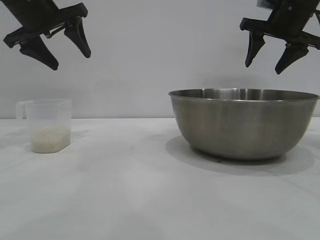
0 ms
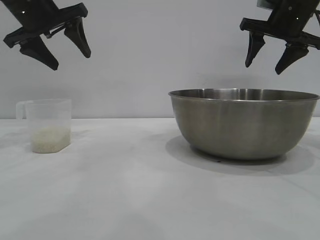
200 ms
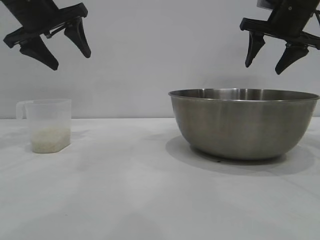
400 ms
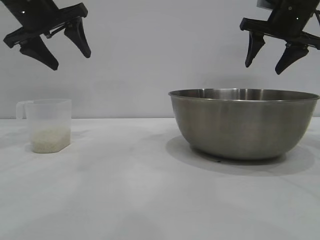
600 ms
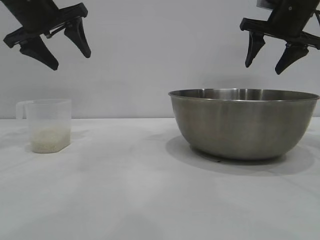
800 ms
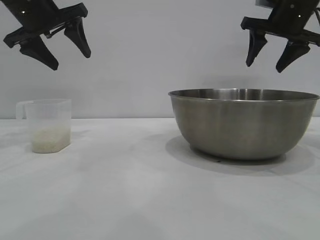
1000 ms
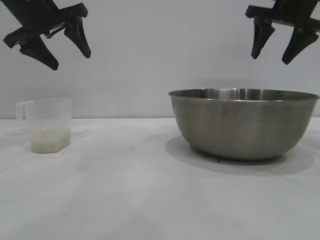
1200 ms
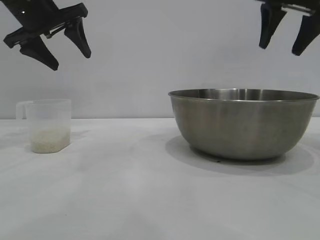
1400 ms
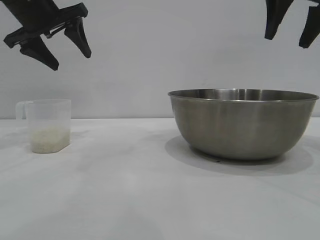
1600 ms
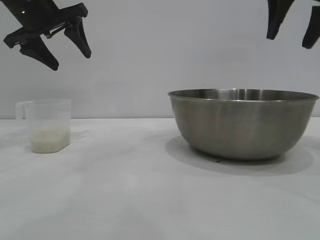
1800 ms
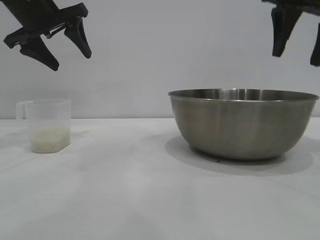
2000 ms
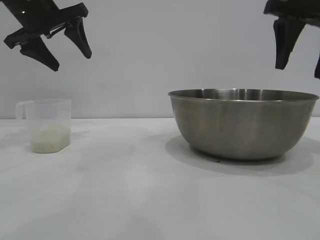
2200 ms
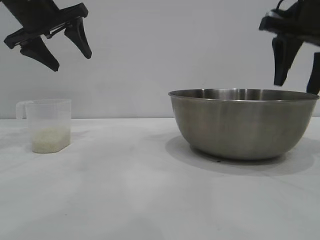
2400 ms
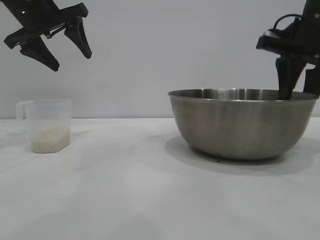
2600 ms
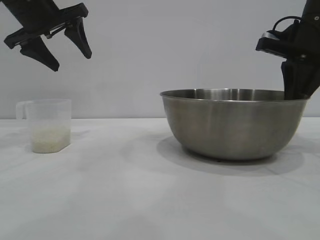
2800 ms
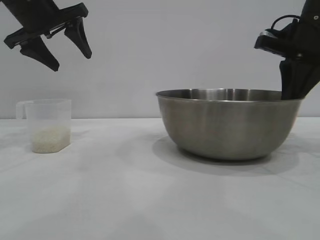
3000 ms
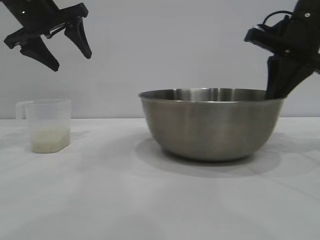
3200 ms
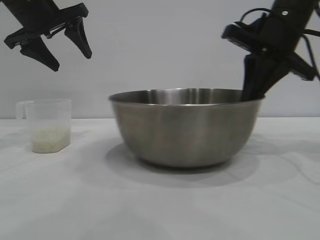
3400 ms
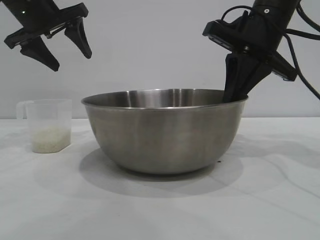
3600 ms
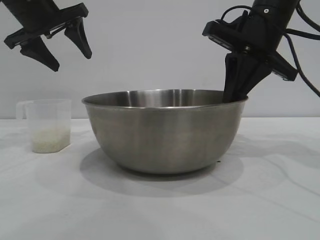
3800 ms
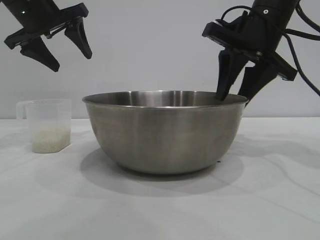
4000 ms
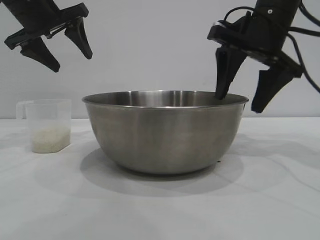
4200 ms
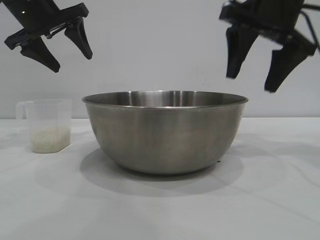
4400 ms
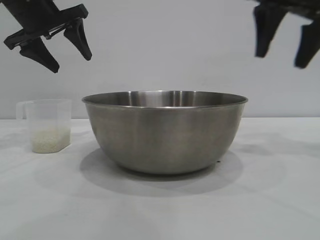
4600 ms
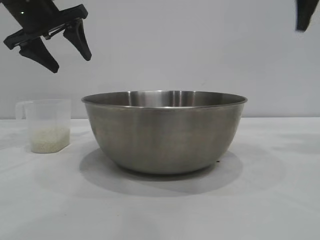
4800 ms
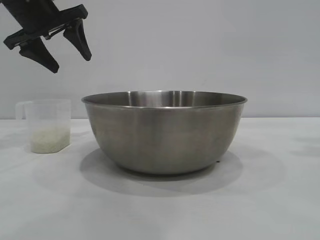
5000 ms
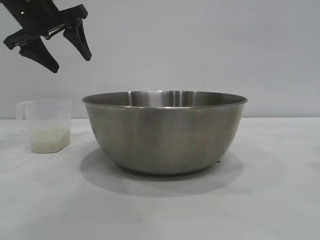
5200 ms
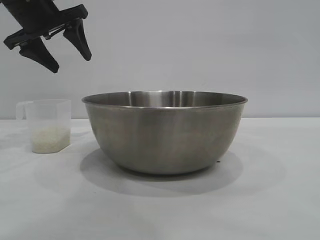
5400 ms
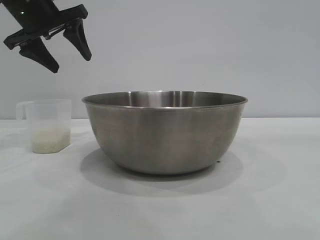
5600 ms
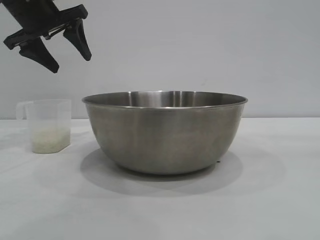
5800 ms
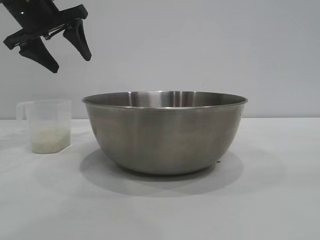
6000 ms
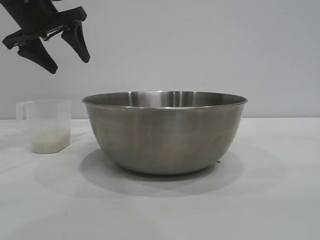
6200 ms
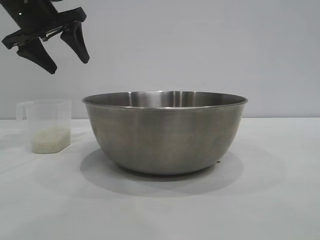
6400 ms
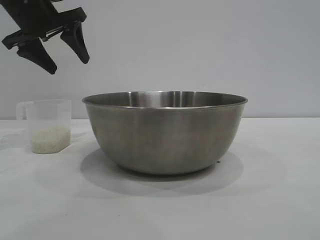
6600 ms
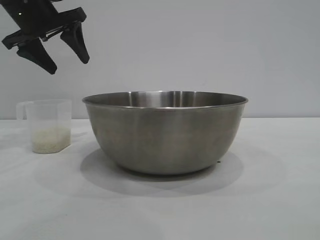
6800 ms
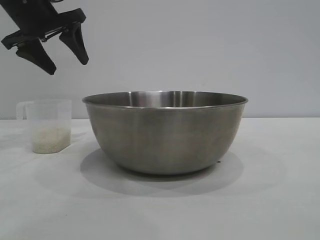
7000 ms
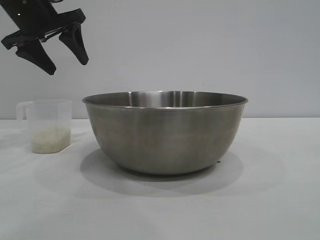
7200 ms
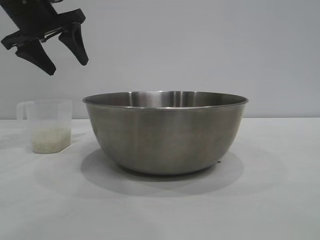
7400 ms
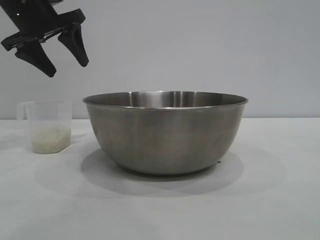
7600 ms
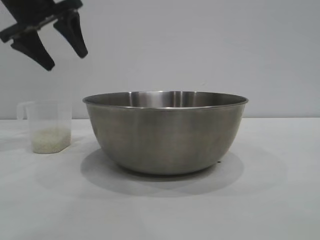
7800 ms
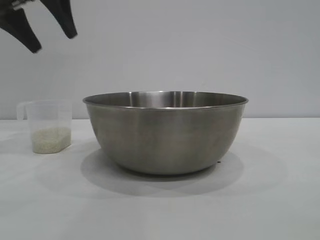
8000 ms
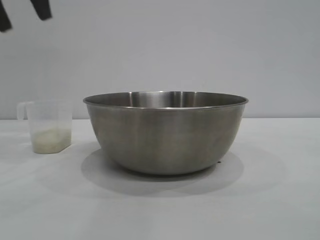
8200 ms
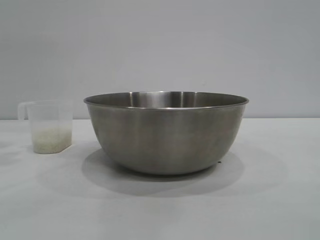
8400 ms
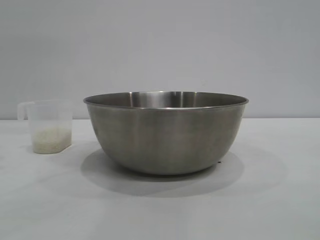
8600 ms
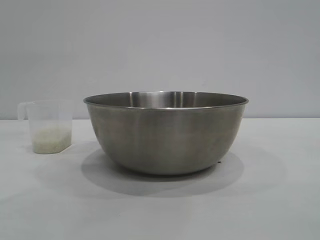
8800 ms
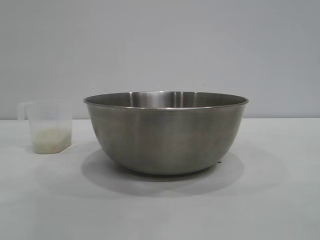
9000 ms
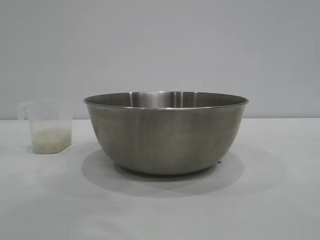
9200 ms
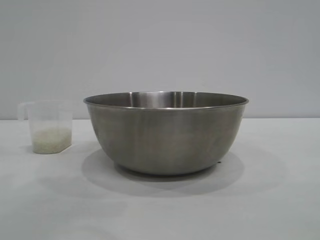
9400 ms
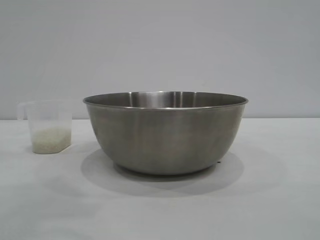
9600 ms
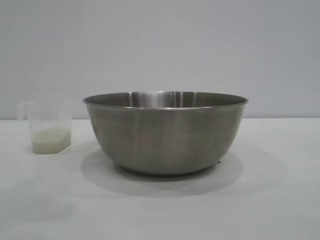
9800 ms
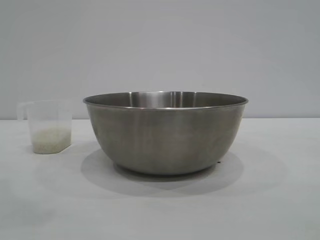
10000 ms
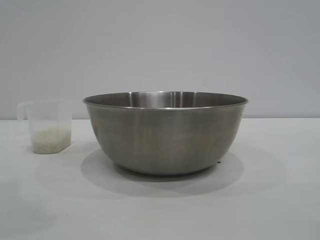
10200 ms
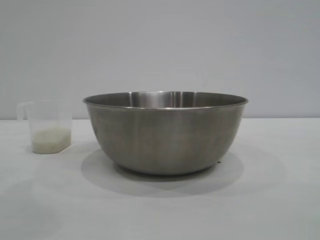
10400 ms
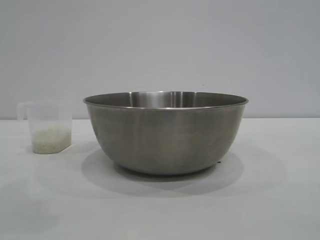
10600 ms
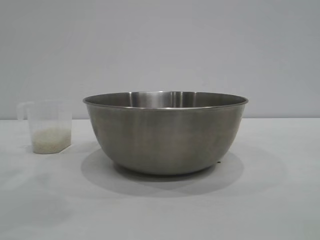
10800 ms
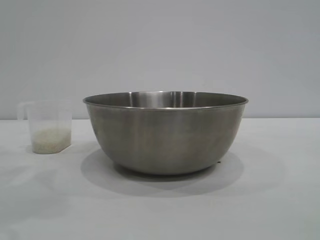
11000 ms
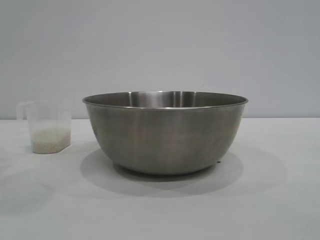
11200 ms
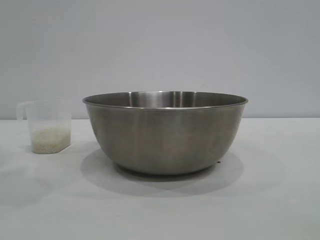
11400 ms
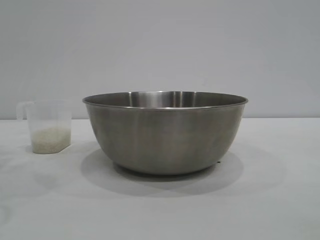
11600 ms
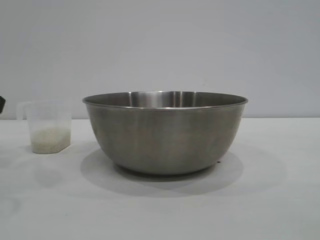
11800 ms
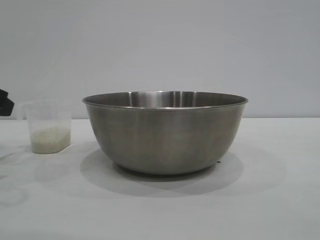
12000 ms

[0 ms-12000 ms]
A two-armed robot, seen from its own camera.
Task of the whole recording: the right gripper grasp the rice container and place it in the center of the table, the left gripper grasp the rice scoop and pour the rice into the rice container.
Step, 0 ms to 4200 ms: Move the bowl to the center of view with the right gripper.

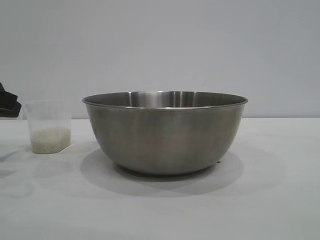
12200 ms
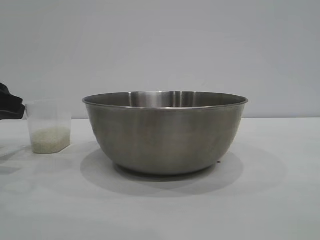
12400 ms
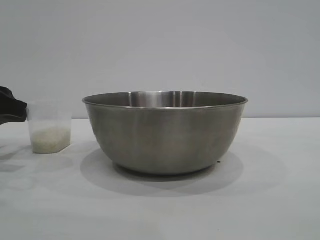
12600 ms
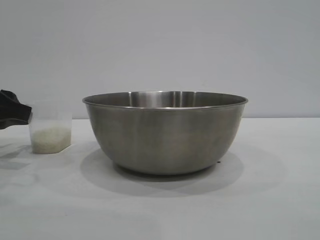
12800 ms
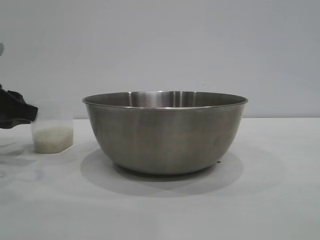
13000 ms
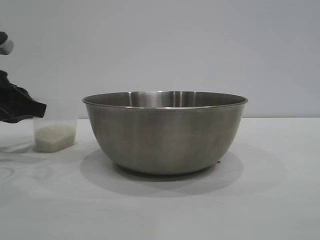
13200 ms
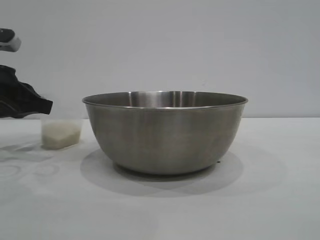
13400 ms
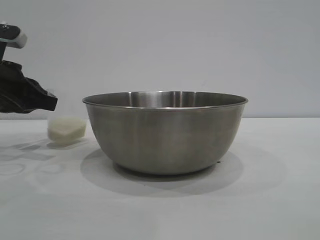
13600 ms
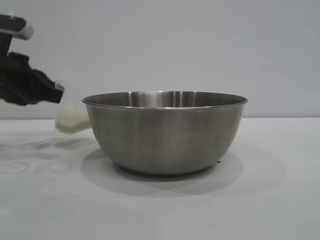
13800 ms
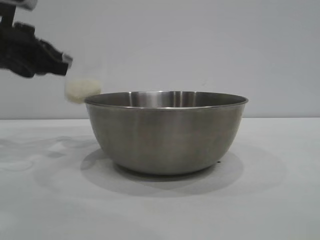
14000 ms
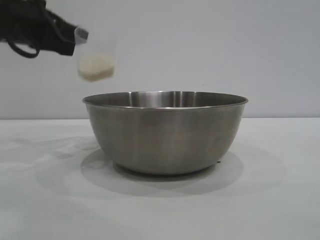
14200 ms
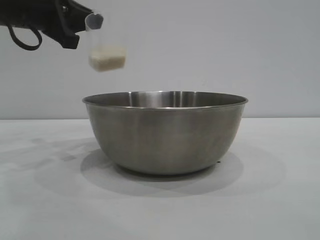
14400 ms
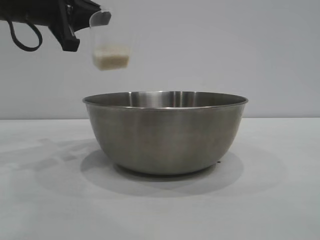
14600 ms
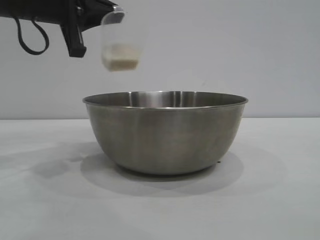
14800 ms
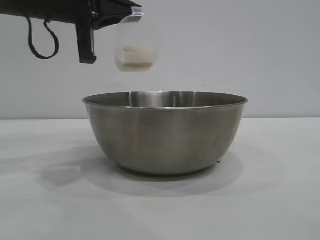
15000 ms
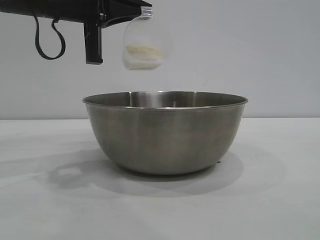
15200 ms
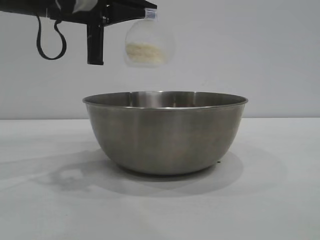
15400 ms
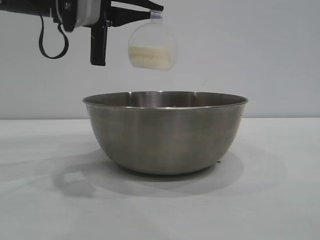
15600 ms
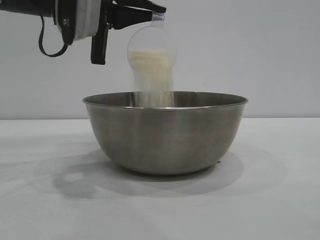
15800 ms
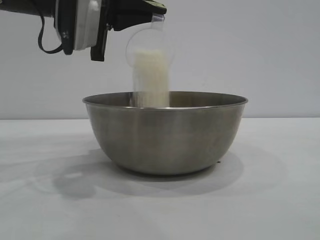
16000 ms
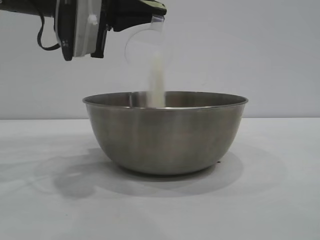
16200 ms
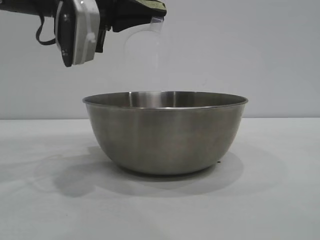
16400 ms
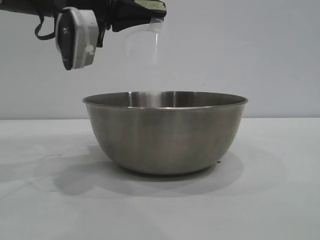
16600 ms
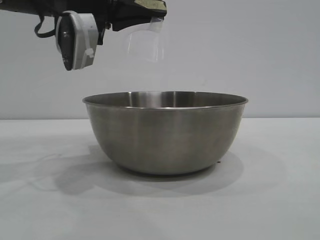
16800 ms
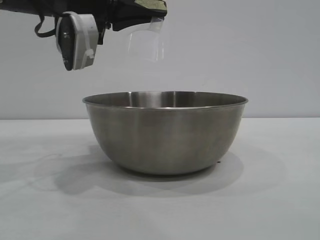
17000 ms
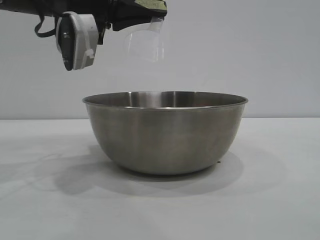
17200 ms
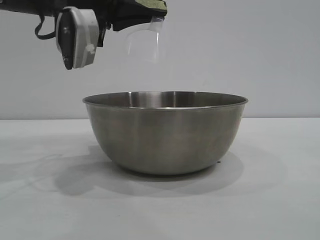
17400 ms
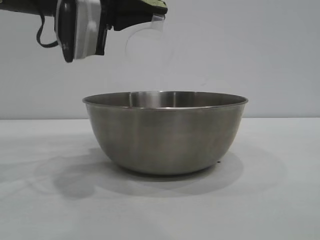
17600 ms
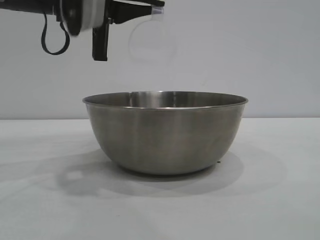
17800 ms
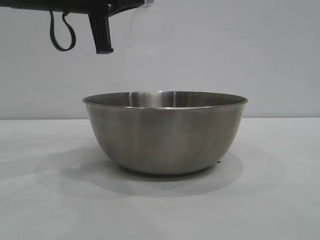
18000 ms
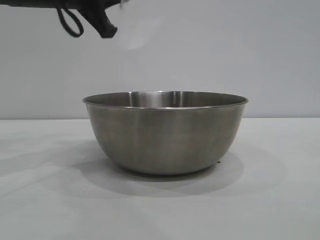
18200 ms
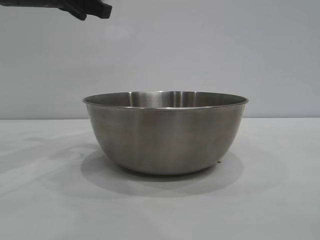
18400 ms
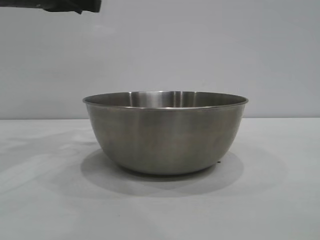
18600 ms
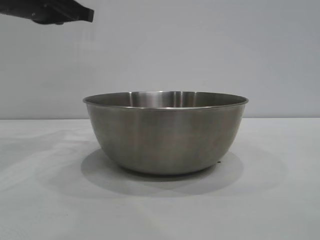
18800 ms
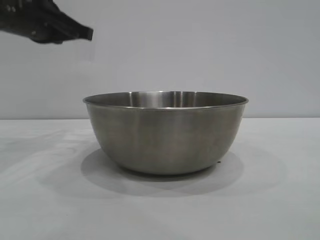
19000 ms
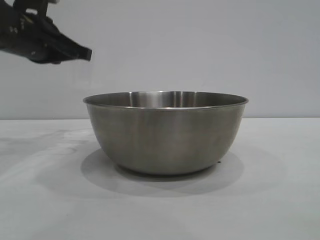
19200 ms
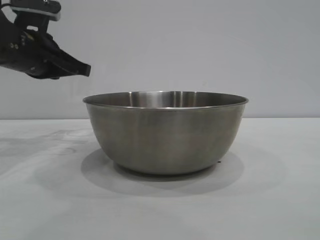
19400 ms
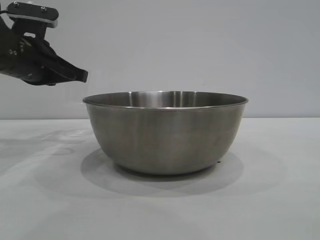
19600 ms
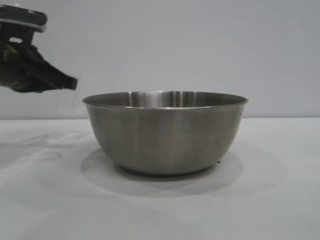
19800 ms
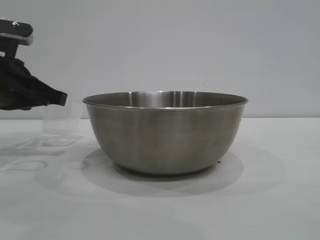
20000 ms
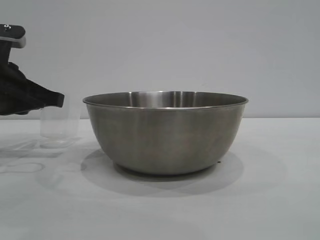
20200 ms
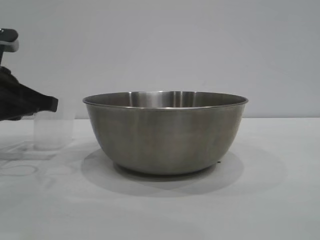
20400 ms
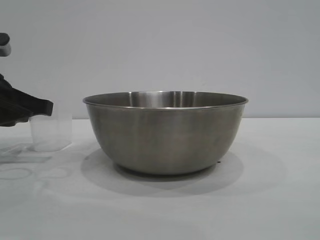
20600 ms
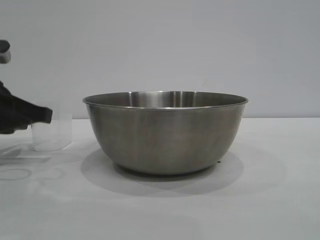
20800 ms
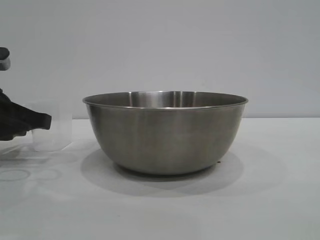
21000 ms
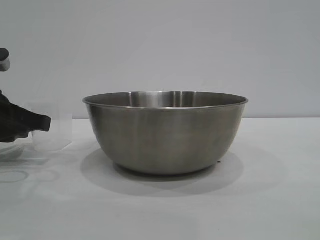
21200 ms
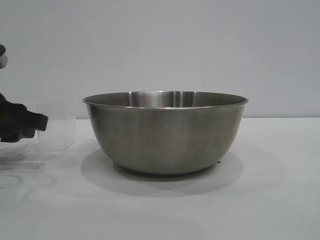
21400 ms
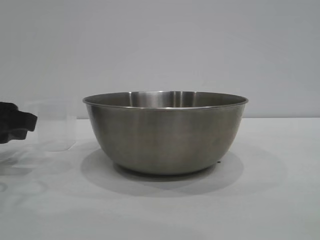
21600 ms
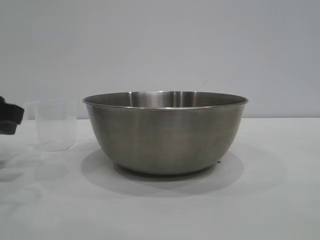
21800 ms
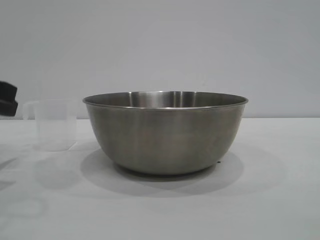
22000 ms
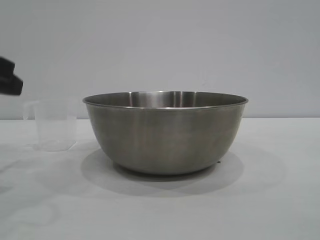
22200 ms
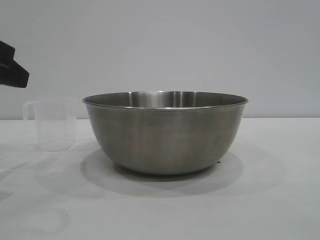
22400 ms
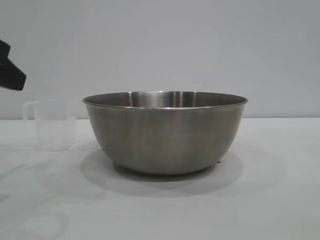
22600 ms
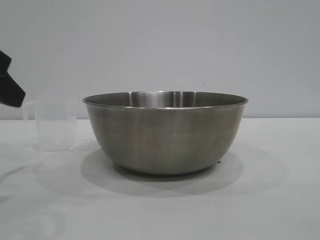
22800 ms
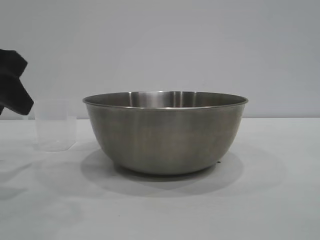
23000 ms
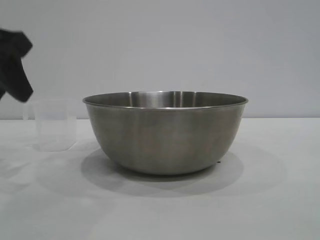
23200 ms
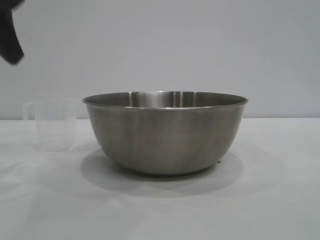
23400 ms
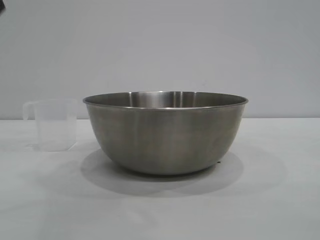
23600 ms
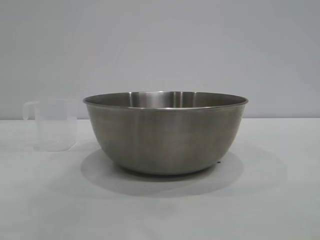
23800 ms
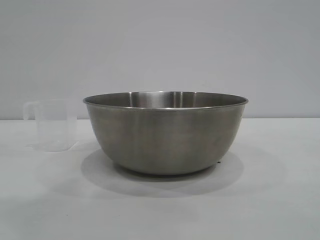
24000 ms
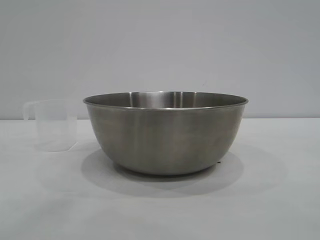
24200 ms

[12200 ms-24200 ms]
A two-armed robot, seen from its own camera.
Task of the whole recording: the right gripper grasp the rice container and place it in the center of the table, the left gripper grasp the rice scoop and pour the rice into the rice container.
Step, 12200 ms to 14200 ms: Pick up the cup with rice in it with the left gripper.
Step, 14400 ms to 18400 ms: Pour the rice from the cup into the bowl with the left gripper.
Step, 18800 ms to 21800 ms: Place the cup on the table with the left gripper.
